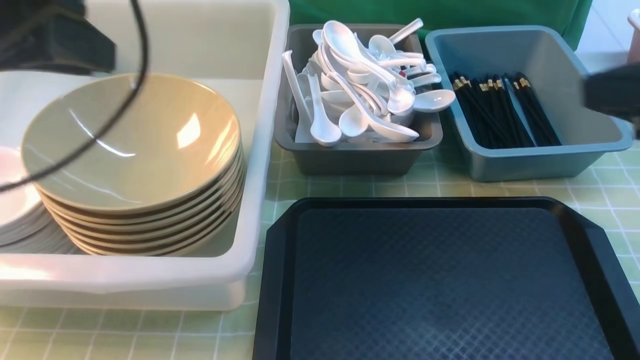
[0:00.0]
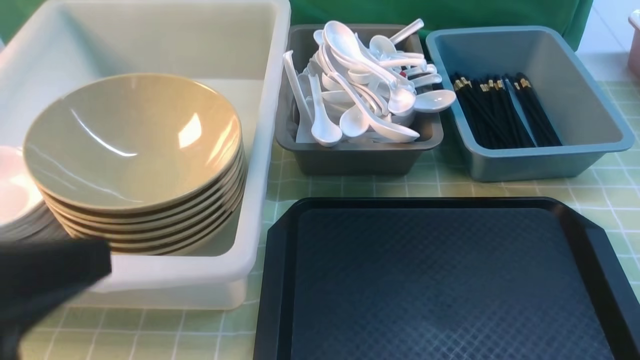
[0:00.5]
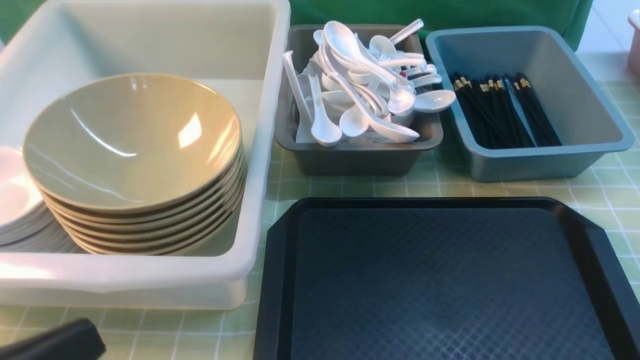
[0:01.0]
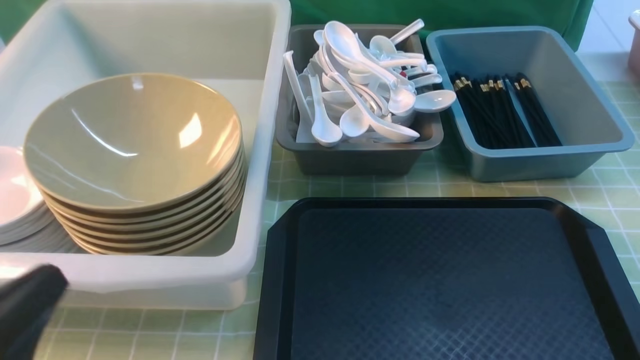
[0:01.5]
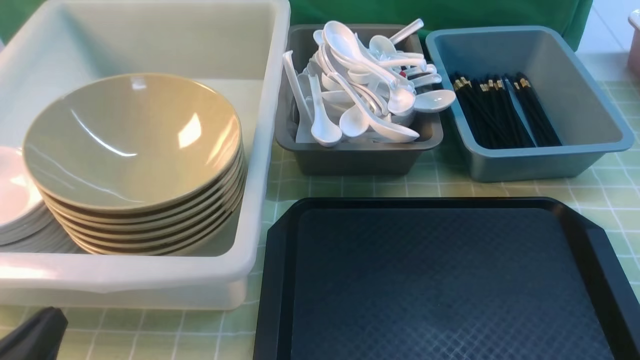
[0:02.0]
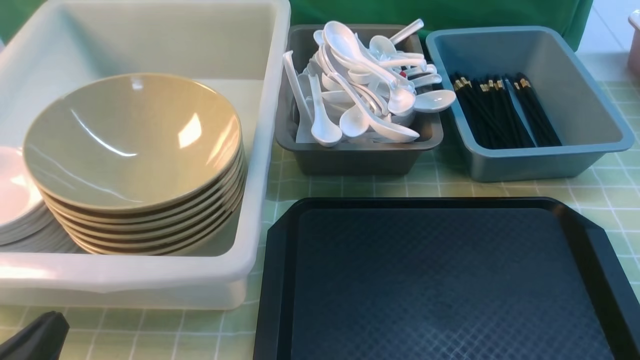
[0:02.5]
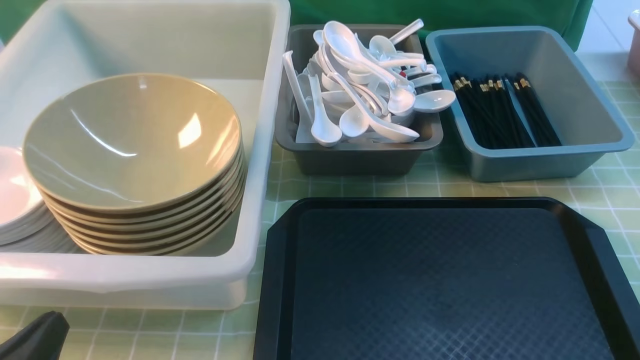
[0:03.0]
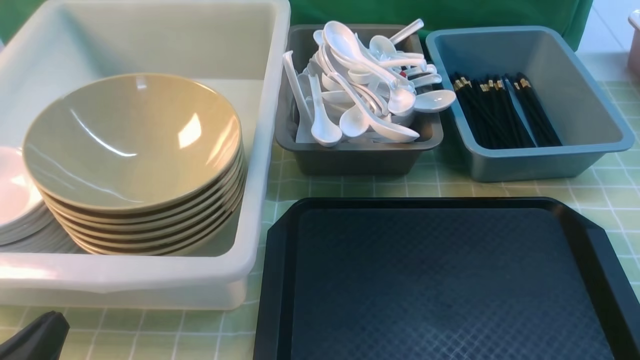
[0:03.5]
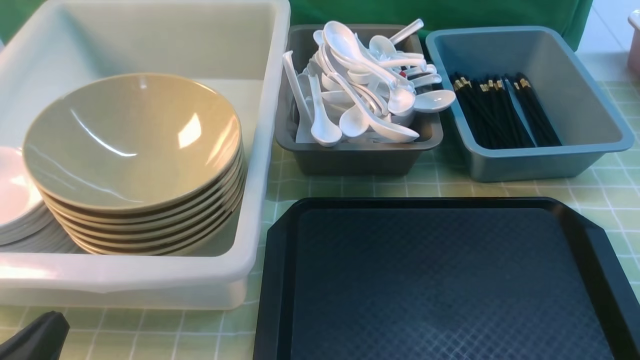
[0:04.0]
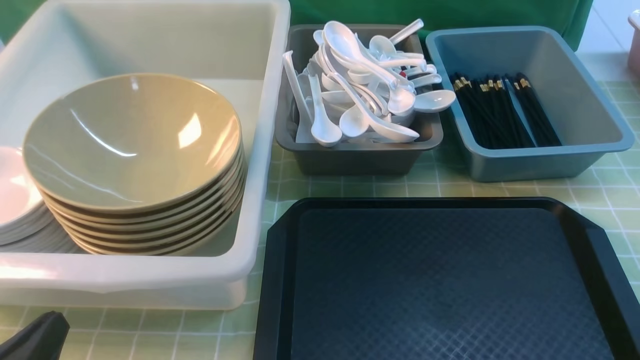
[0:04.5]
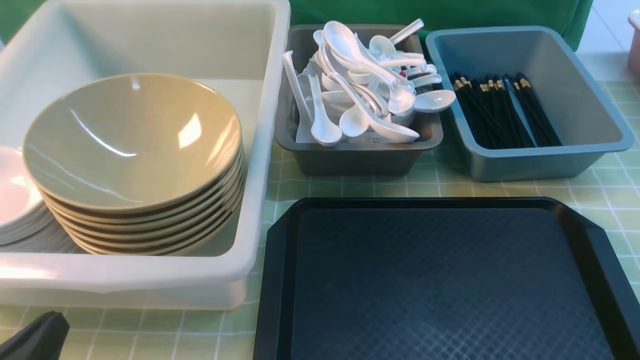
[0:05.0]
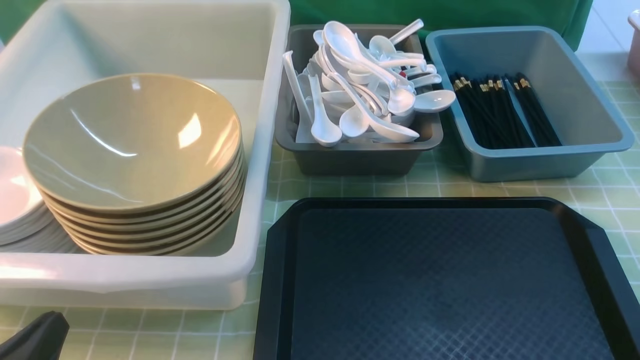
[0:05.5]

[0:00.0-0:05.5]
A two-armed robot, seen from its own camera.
Task of the whole recording: on green table put chopsticks spoon bowls plates into blue grey white boxes.
0:00.0 to 0:02.0: The left gripper heads downward and backward, covering some 30 cm. Meanwhile the right gripper moves backward and downward, some 20 cm.

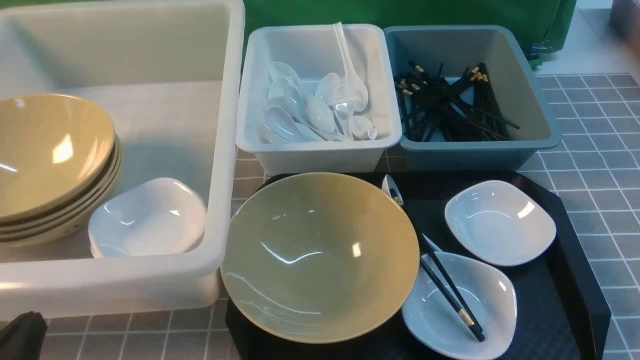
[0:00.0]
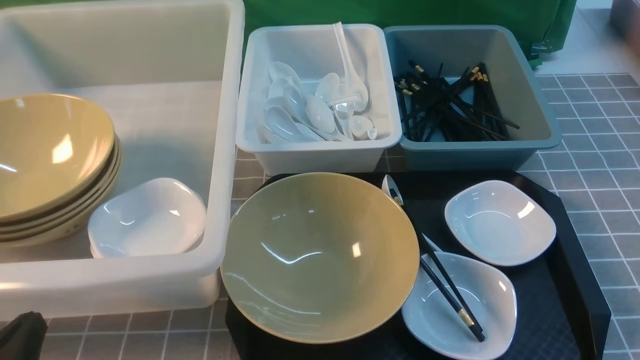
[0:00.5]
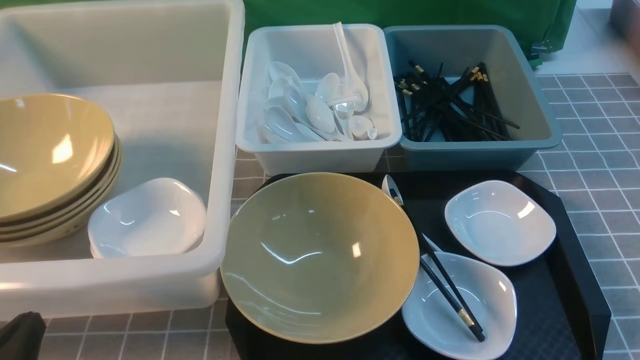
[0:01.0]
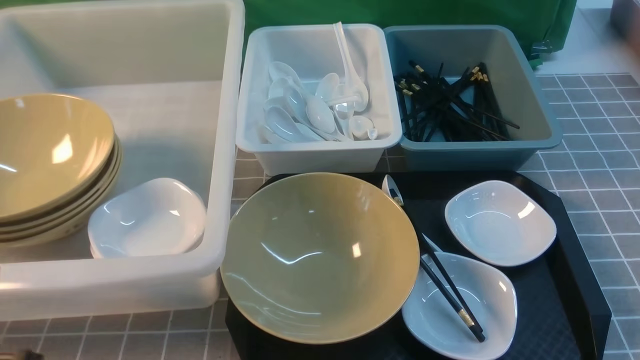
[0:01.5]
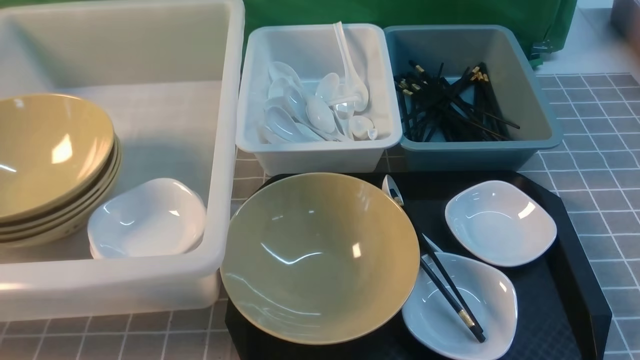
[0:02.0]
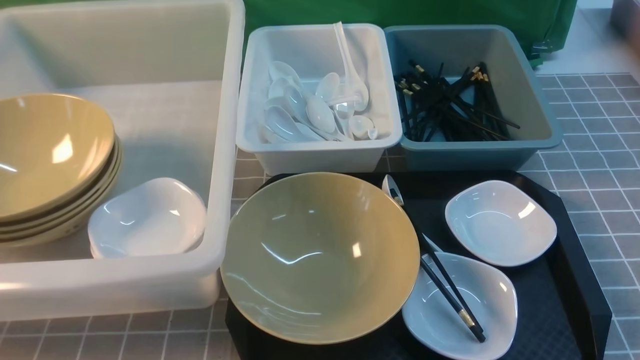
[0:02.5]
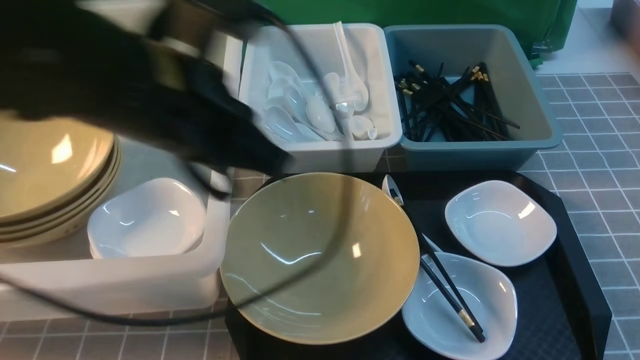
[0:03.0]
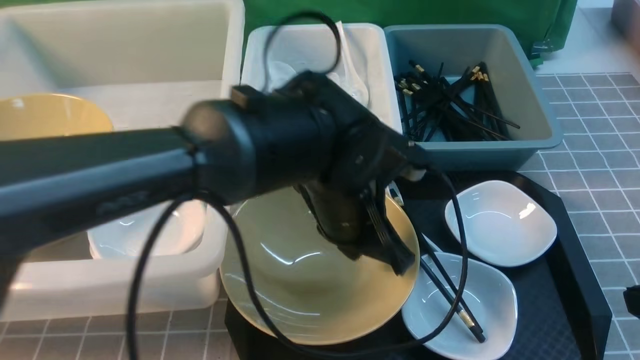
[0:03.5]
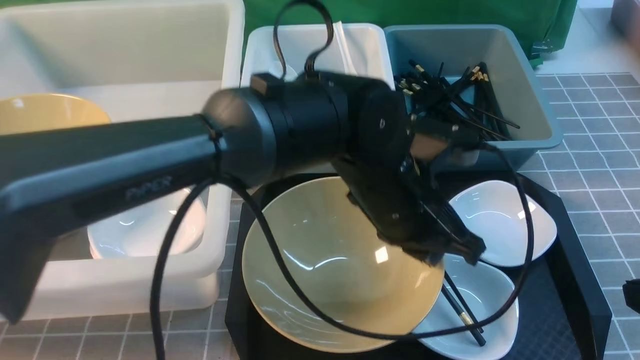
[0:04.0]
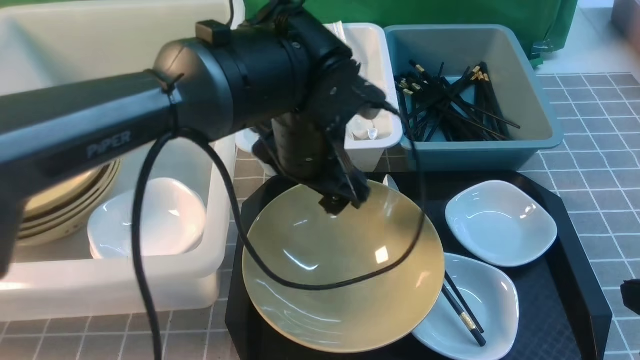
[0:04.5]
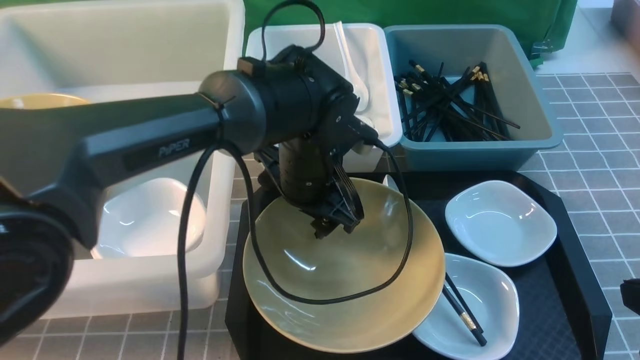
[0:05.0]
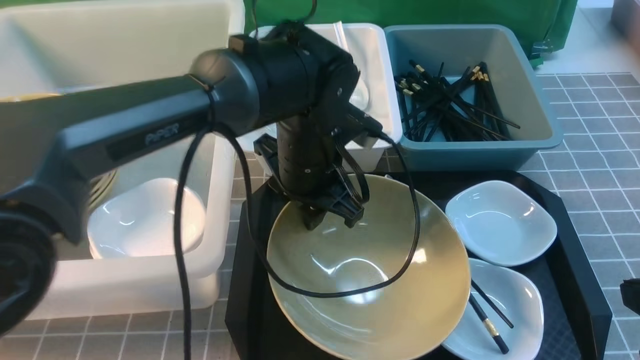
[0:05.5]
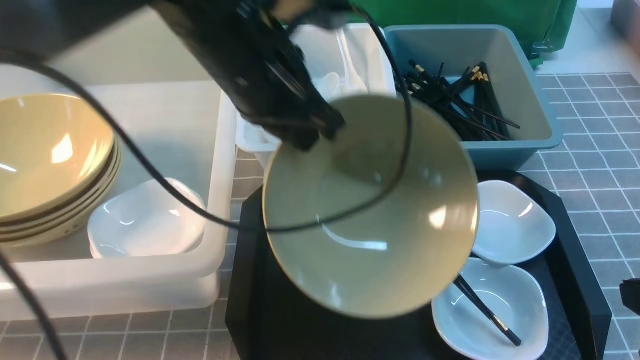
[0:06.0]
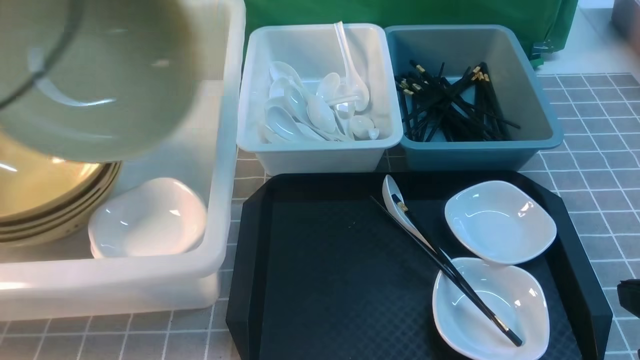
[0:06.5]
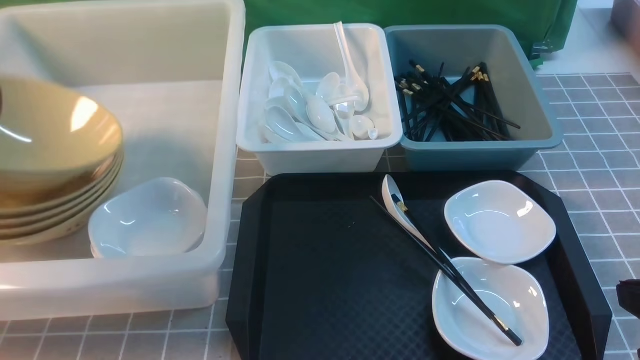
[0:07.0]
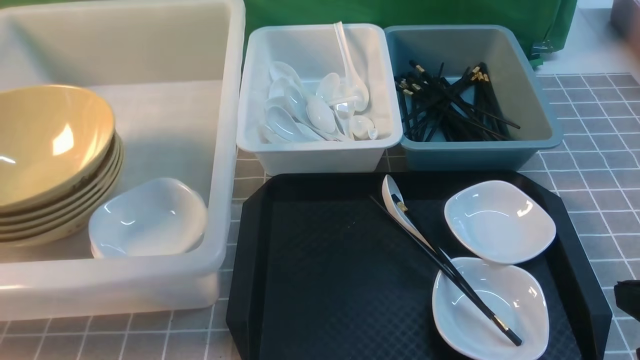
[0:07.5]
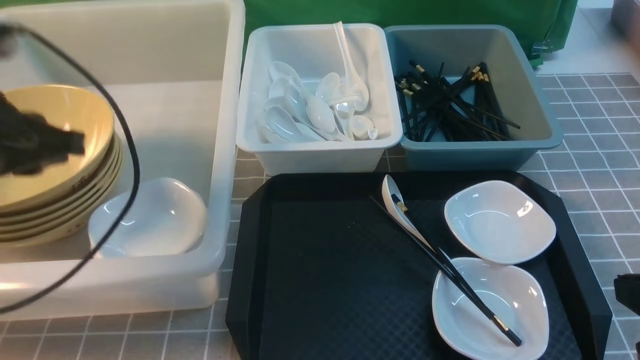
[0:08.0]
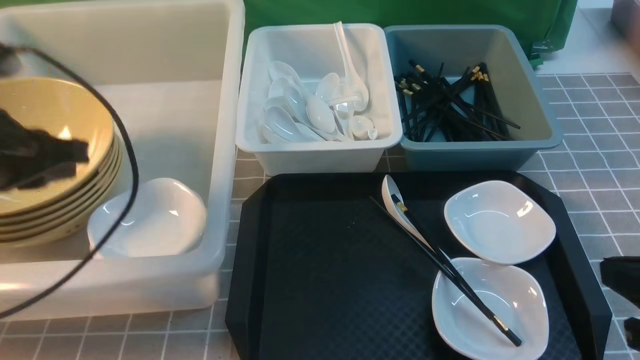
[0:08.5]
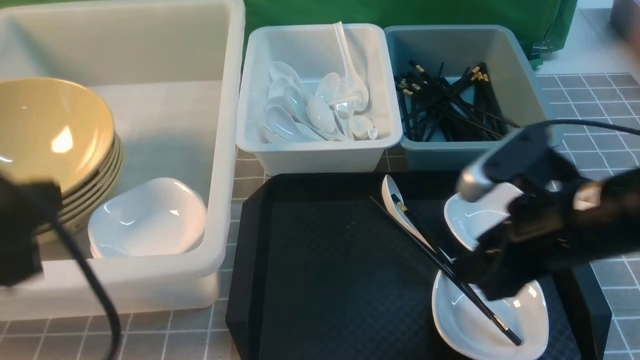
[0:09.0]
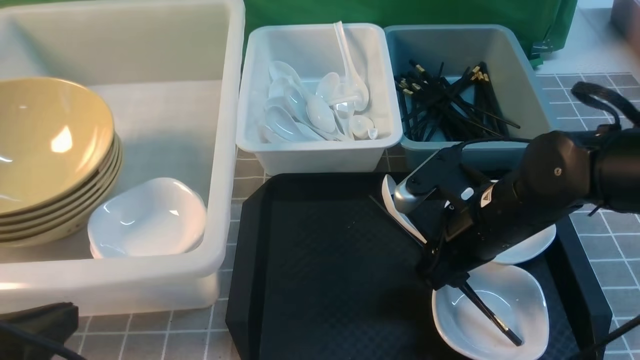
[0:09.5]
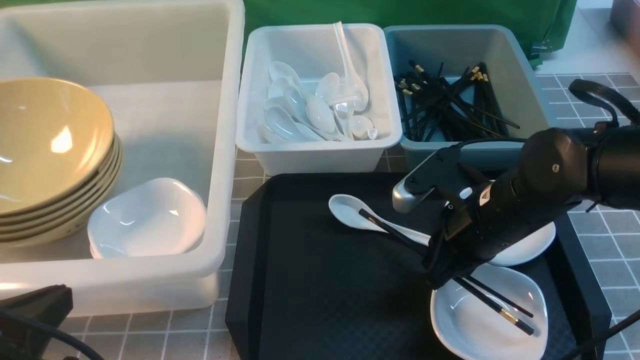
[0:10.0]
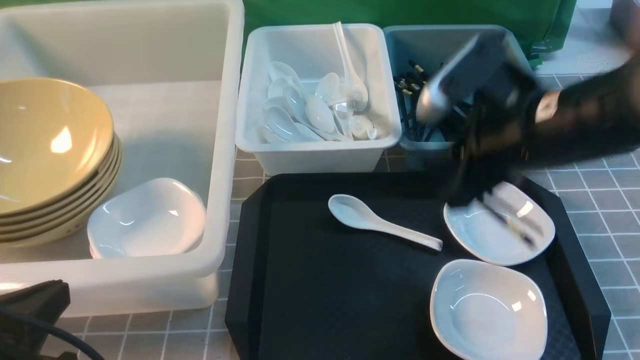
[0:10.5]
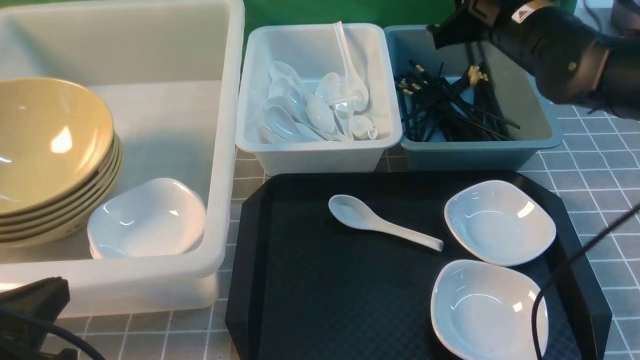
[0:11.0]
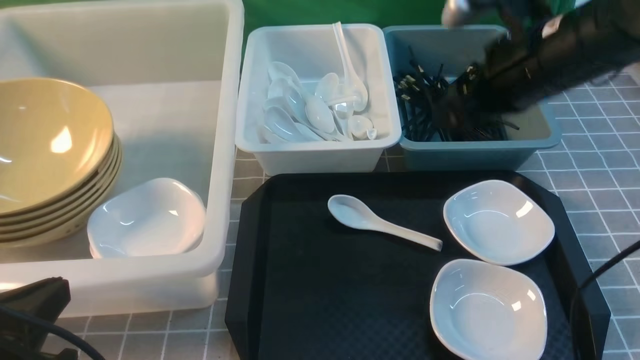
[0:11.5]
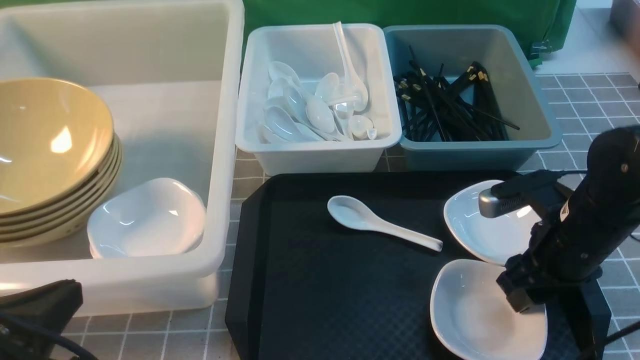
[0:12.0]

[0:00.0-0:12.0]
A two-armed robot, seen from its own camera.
Task of the whole recording: on grey table put chopsticks spoon bowls plates into blue grey white boxes.
Step, 0:00.0 to 0:05.5: use the left arm to grab the yellow noodle bowl on the left.
Step, 0:06.0 to 0:07.0: use the left arm to put the noodle bowl into the large storage box on the left.
Step, 0:07.5 to 0:09.5: use the right arm to grab the chopsticks.
Step, 0:10.0 to 0:11.0: use the right arm to put the chopsticks into the small storage box on the right.
0:00.0 to 0:02.0: The left gripper moves upward, some 10 cm.
0:02.0 to 0:04.0: The left gripper heads to the right and forward, covering approximately 40 cm; the right gripper is displaced forward by roughly 5 cm.
0:04.0 to 0:06.0: The left gripper moves to the left and upward, about 15 cm, and opens, then closes once more.
0:06.0 to 0:08.0: The left gripper heads to the left, covering roughly 20 cm, and opens, then closes once more.
0:08.0 to 0:10.0: The right gripper goes some 20 cm forward and to the left, and opens and closes again; the left gripper travels backward by roughly 20 cm.
0:10.0 to 0:12.0: The right gripper shifts some 10 cm to the right, reaches roughly 10 cm upward, then returns, and opens up.

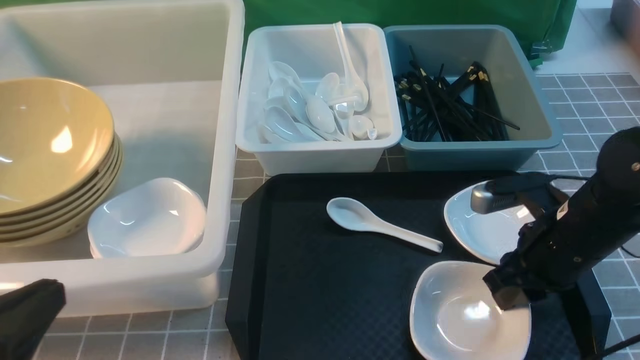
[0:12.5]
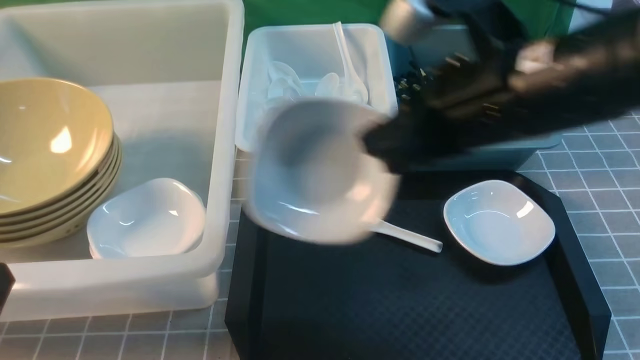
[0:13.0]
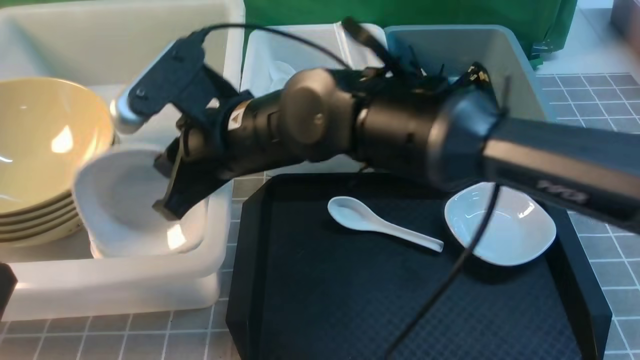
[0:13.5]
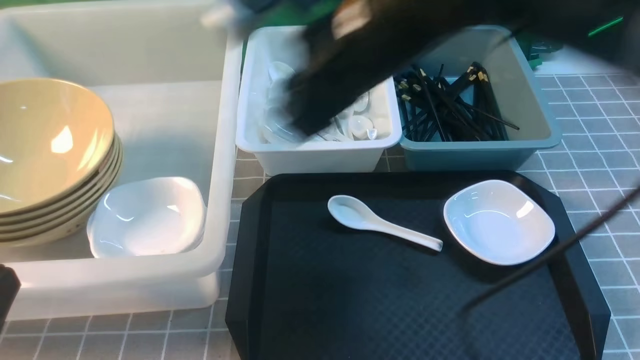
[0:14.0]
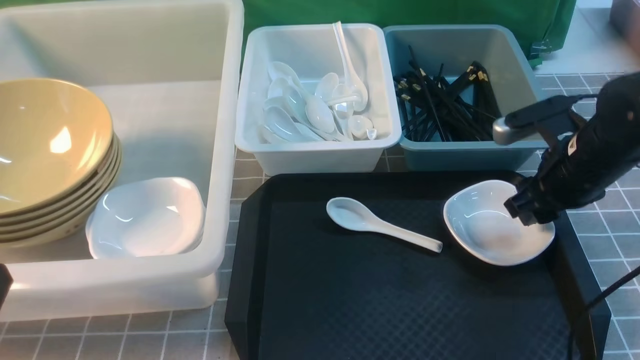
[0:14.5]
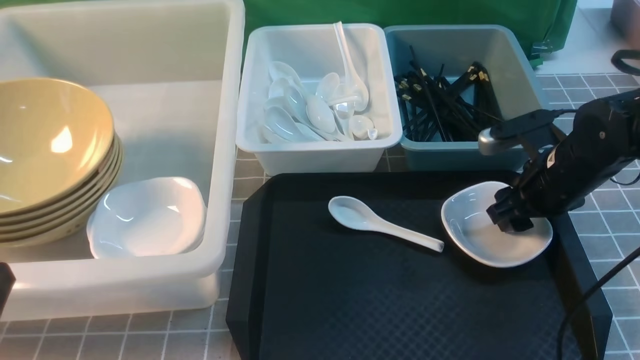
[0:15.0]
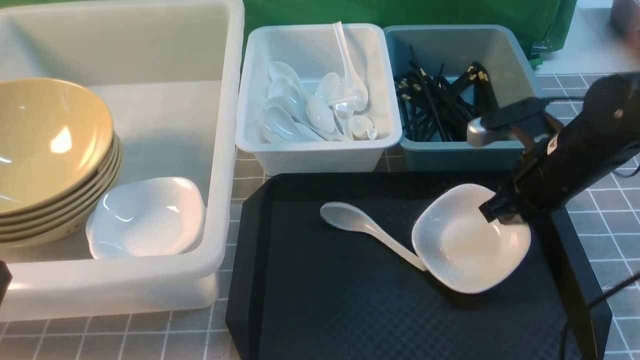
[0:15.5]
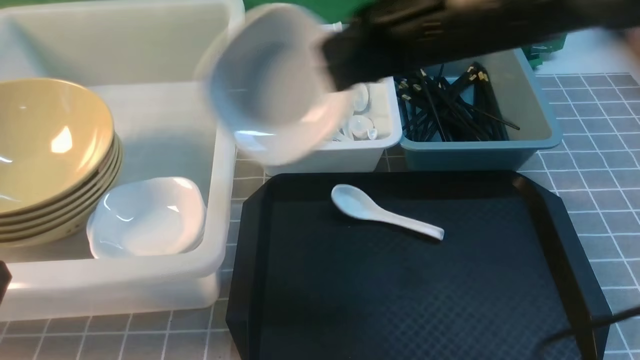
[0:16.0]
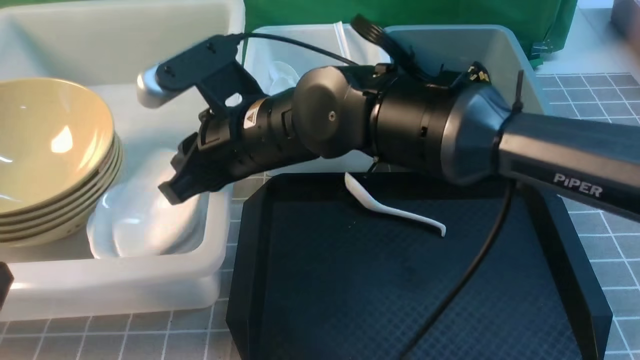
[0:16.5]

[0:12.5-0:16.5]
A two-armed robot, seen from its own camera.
Task of the whole recording: on grey table put chopsticks spoon bowls plates into blue grey white boxes.
Step, 0:13.0 to 0:13.5: use the right arm to put the plate into the large storage box on the left.
Step, 0:14.0 to 0:15.0: use the right arm to grab the plate.
0:12.5 to 0:14.5: The right gripper heads forward, covering approximately 10 cm, travels to the left and back again, about 30 cm each way, and opens.
0:14.5 to 0:16.5: The right gripper is displaced to the left by approximately 30 cm, and closes up.
